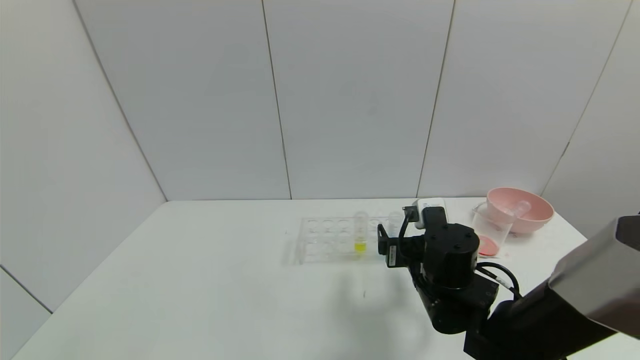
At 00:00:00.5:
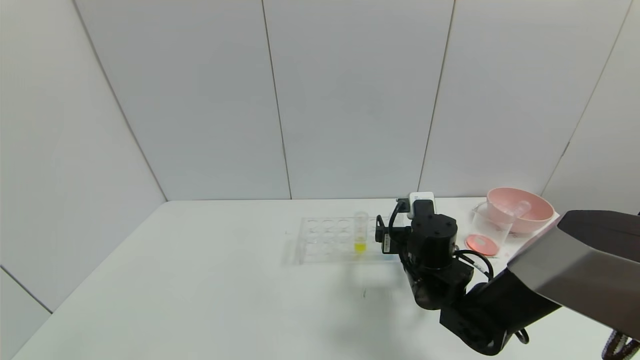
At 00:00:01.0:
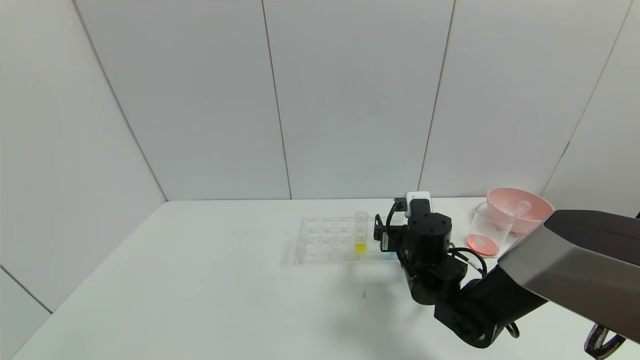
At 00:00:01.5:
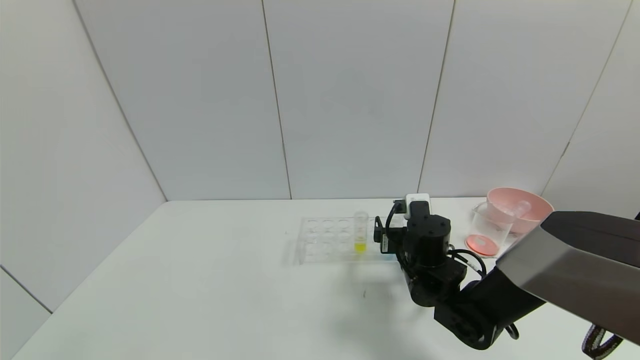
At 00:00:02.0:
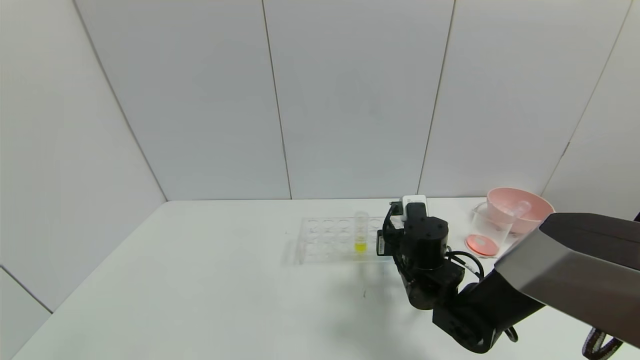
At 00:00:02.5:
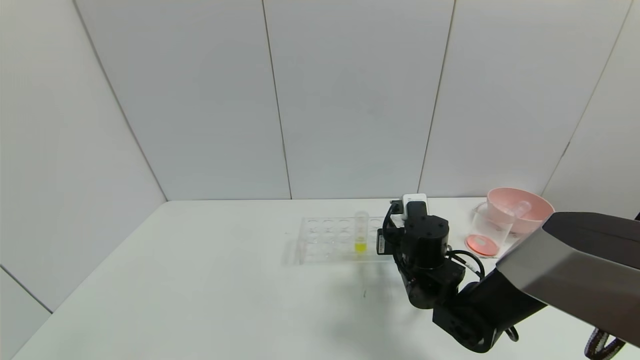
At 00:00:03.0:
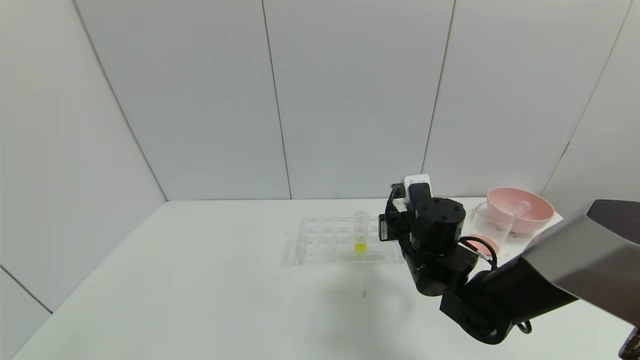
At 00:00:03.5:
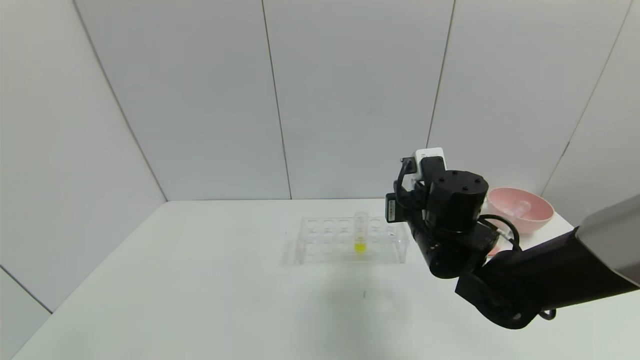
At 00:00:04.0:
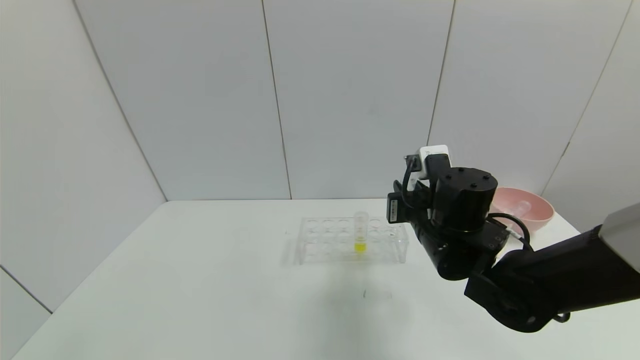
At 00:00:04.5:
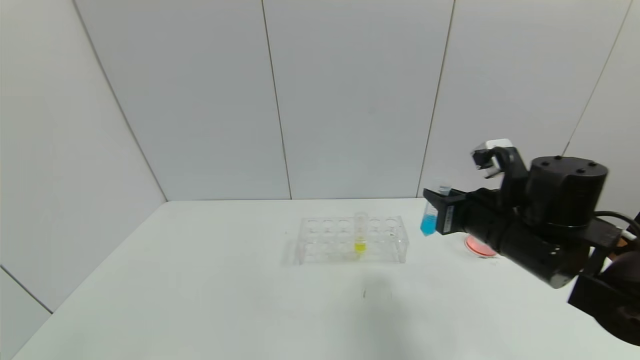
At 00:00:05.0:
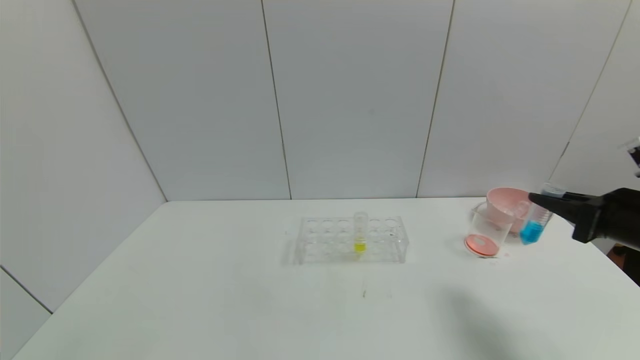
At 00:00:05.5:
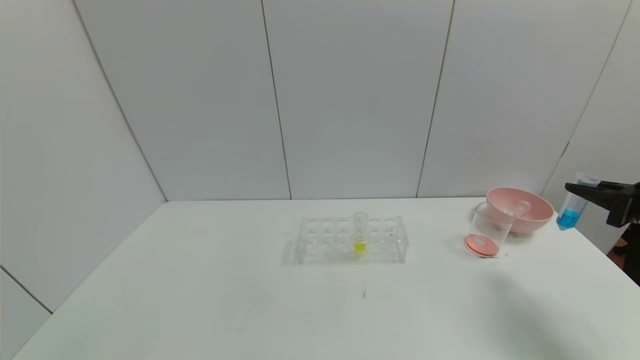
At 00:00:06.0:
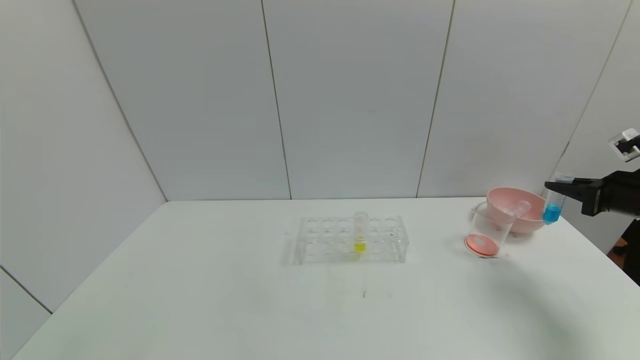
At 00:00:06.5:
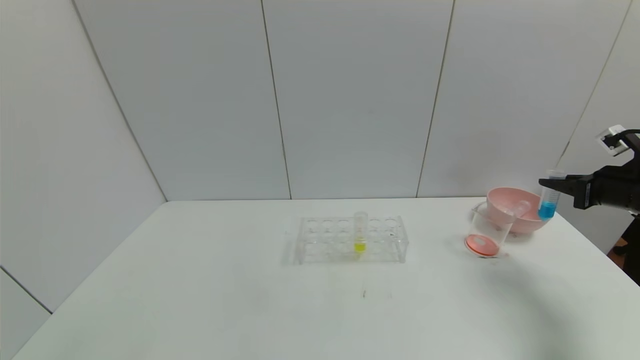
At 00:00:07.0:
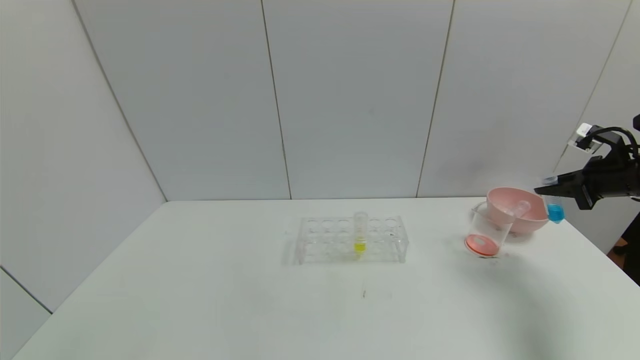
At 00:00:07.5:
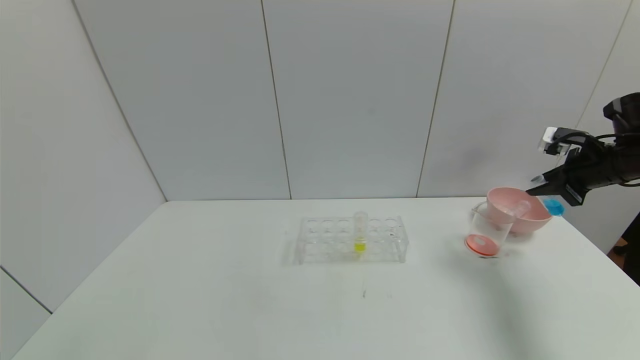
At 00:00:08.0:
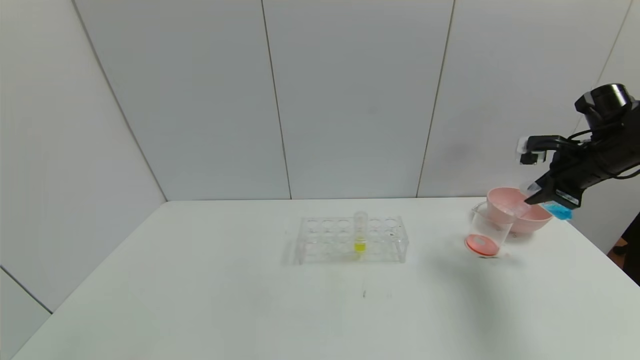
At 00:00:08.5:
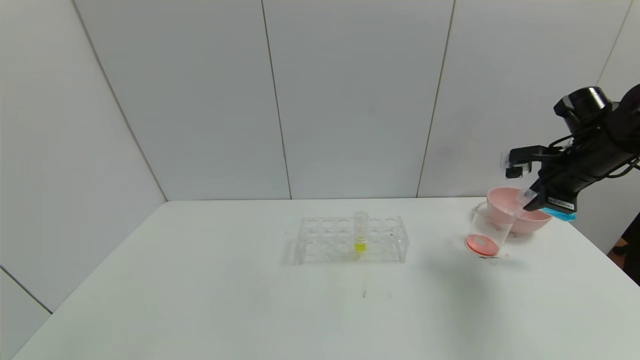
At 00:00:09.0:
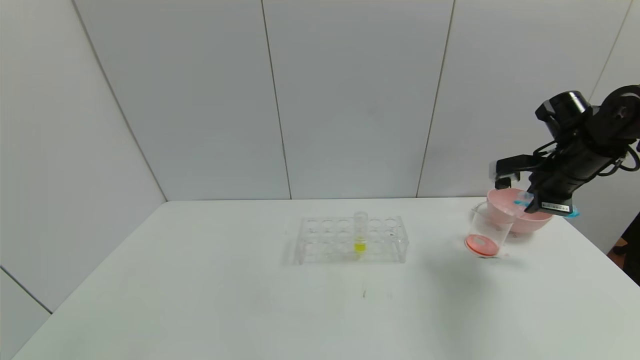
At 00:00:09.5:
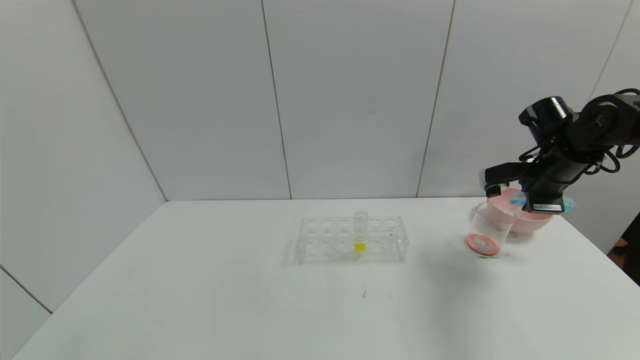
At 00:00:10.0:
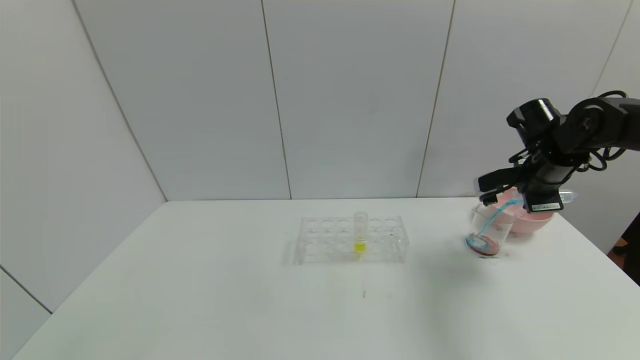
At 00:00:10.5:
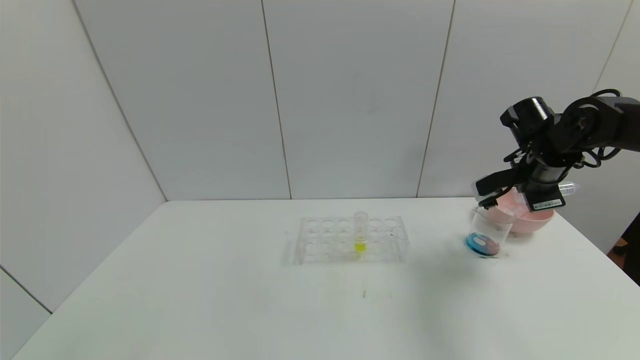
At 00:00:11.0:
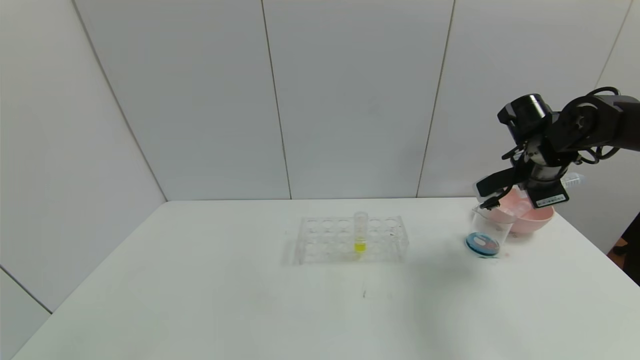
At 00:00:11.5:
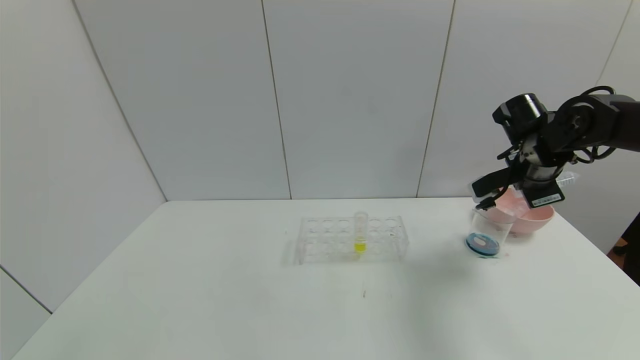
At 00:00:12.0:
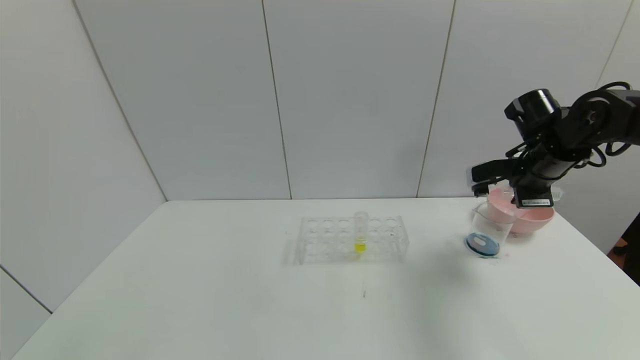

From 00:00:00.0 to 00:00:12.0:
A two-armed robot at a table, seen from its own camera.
Task of the whole recording: pick up the test tube with red pigment and the test tube with blue pigment by grippers and pour them into the container.
Step, from 00:00:00.0 to 00:00:02.5: Grasp the blue reagent with the right gripper.
Step, from 00:00:03.0 to 00:00:10.5: Pour the blue reagent into the graduated cylinder with the right gripper.
From 00:00:00.0 to 00:00:02.0: The right gripper ends up about 5 cm from where it was, and closes its fingers.
From 00:00:02.0 to 00:00:04.0: The right gripper heads upward, covering some 10 cm.
From 00:00:04.0 to 00:00:06.0: The right gripper heads to the right, covering some 35 cm.
From 00:00:06.0 to 00:00:08.0: The right gripper shifts about 10 cm to the left and forward.
From 00:00:08.0 to 00:00:10.0: The right gripper moves to the left, approximately 5 cm.
From 00:00:10.0 to 00:00:12.0: The grippers move only a little.

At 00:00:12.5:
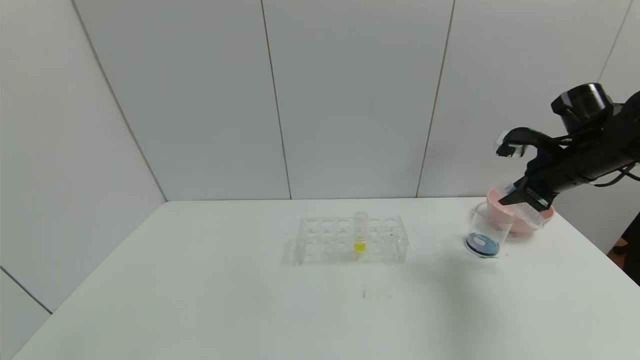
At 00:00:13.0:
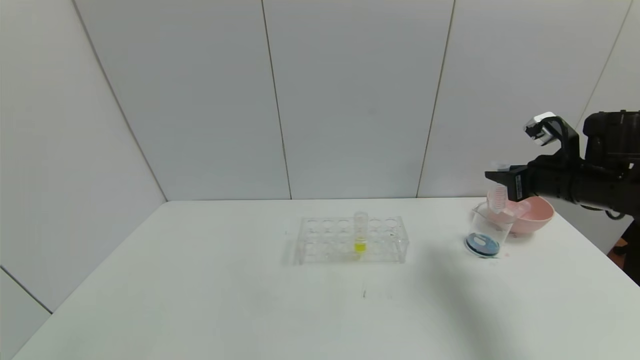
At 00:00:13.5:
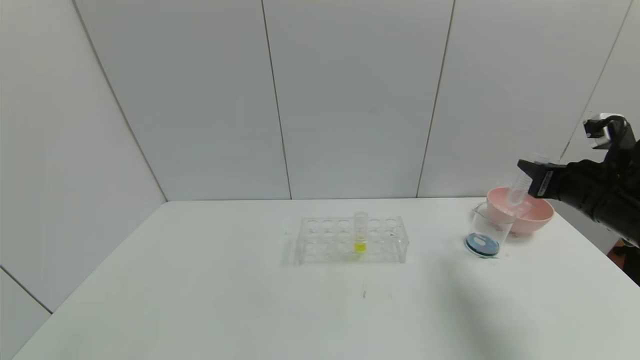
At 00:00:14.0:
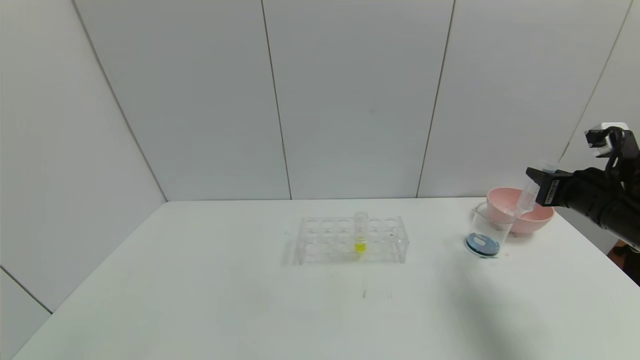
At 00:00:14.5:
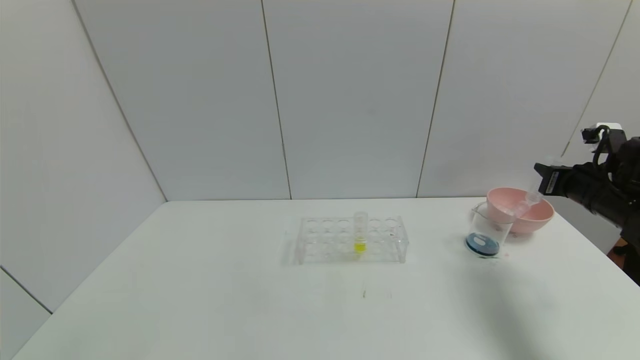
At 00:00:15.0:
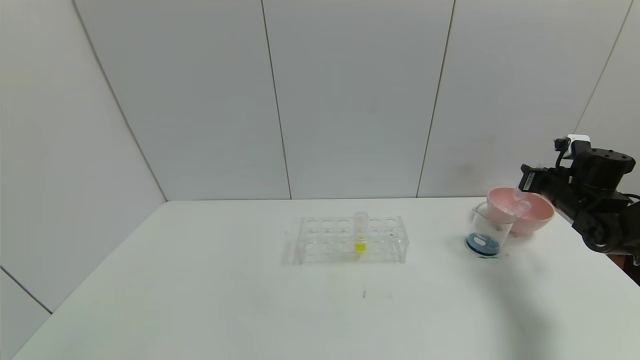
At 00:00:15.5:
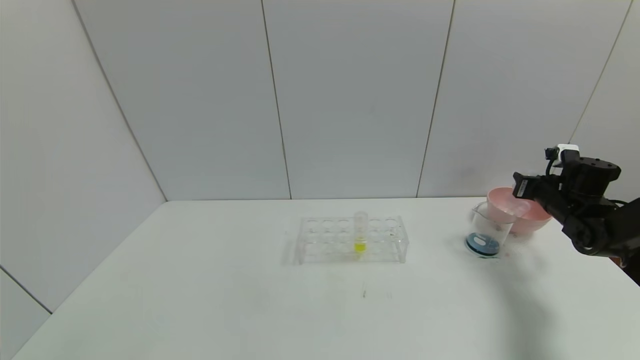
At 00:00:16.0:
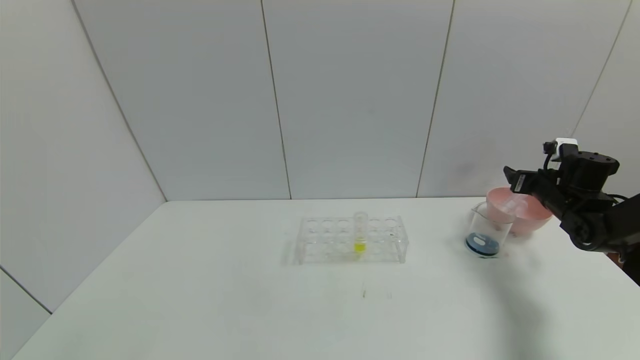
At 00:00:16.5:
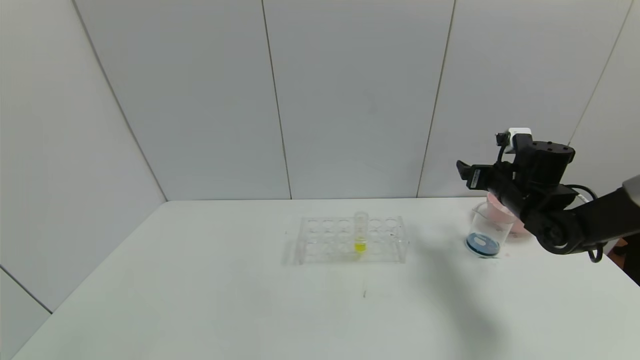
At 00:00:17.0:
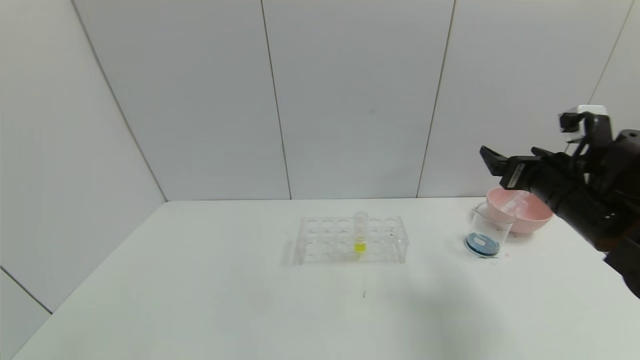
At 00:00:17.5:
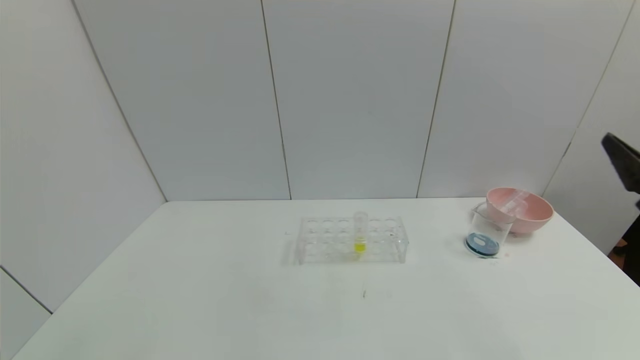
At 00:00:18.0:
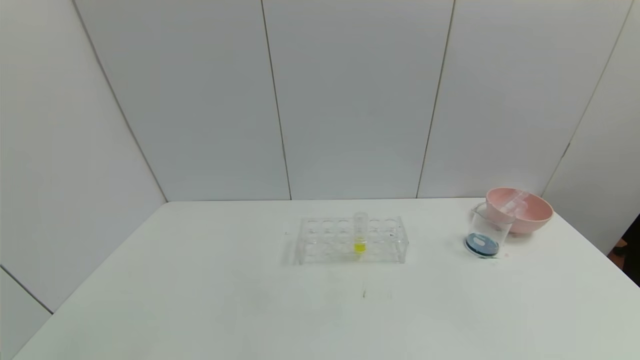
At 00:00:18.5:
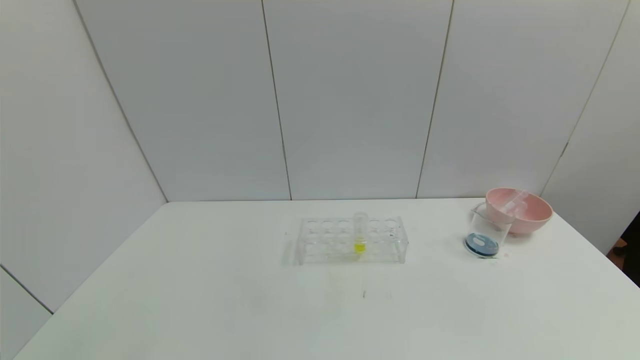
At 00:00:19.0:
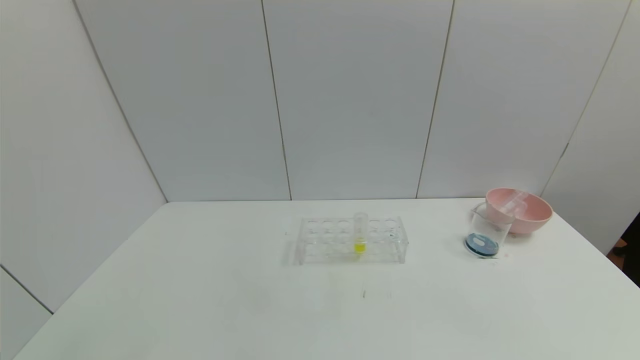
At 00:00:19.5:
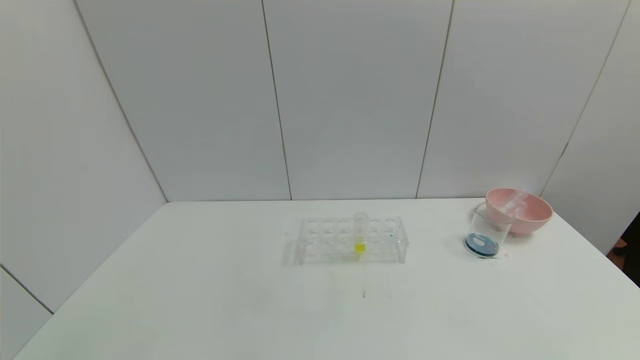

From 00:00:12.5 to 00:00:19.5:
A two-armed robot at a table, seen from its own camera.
Task of the whole recording: pick up the test tube with red pigment and the test tube with blue pigment by grippers and pour them into the container.
Step, from 00:00:12.5 to 00:00:15.5: Place the test tube into the bowl with the right gripper.
From 00:00:12.5 to 00:00:14.5: The right gripper goes approximately 10 cm downward and to the right.
From 00:00:14.5 to 00:00:16.0: The right gripper is displaced forward and downward by some 10 cm, and opens up.
From 00:00:16.0 to 00:00:17.5: The right gripper shifts roughly 30 cm backward and upward.
From 00:00:17.5 to 00:00:19.5: The right gripper travels backward and downward by some 25 cm.
